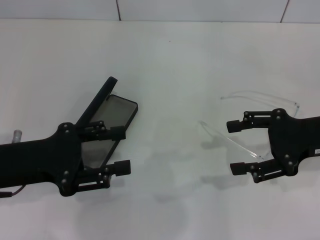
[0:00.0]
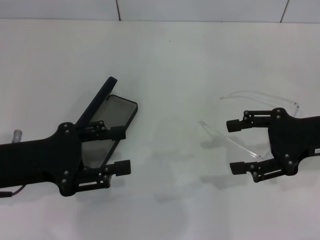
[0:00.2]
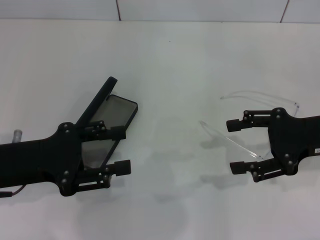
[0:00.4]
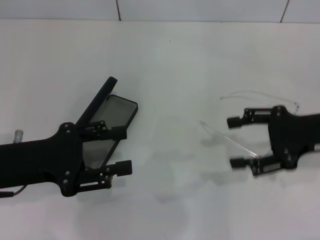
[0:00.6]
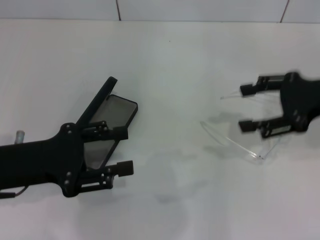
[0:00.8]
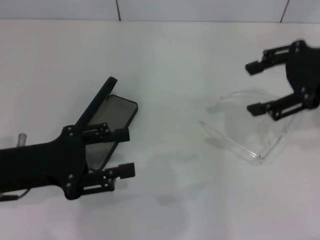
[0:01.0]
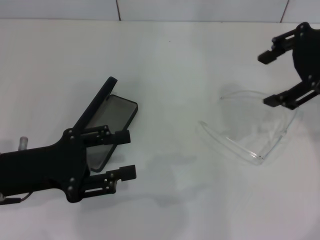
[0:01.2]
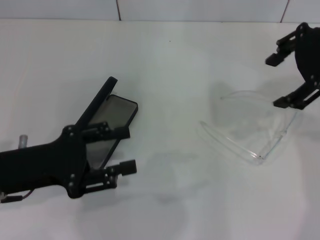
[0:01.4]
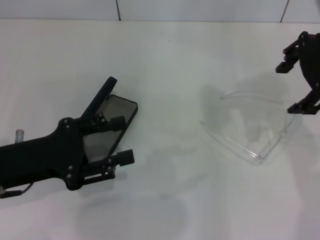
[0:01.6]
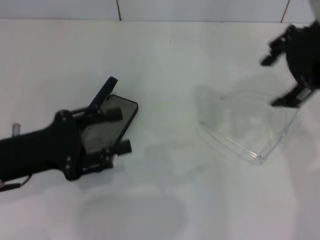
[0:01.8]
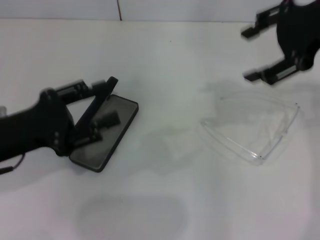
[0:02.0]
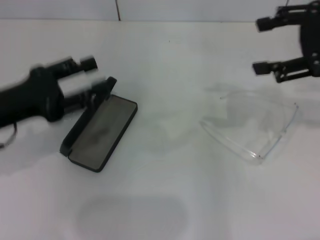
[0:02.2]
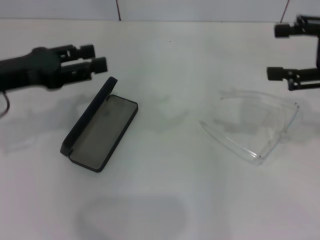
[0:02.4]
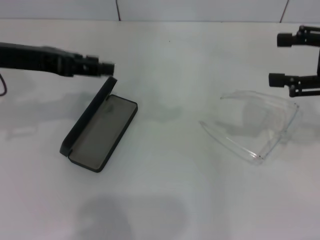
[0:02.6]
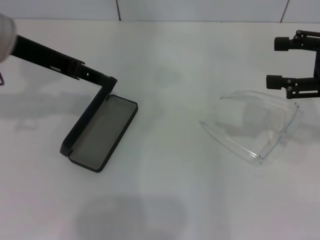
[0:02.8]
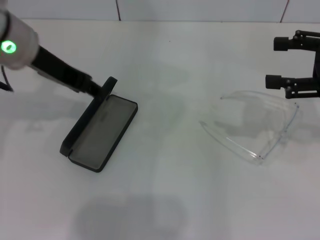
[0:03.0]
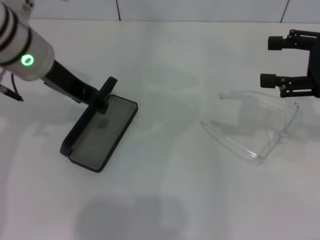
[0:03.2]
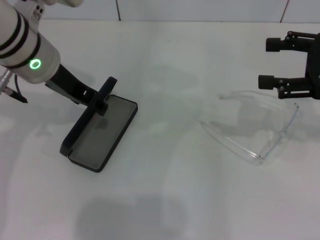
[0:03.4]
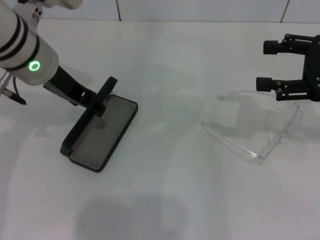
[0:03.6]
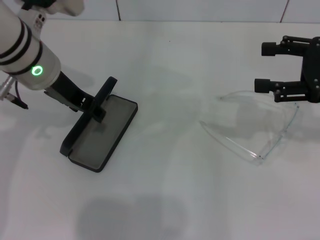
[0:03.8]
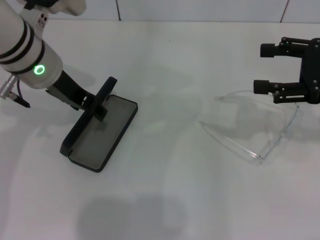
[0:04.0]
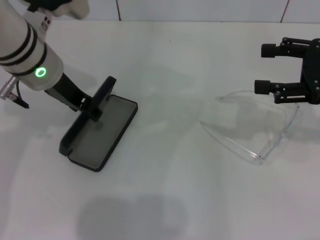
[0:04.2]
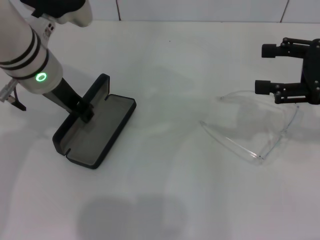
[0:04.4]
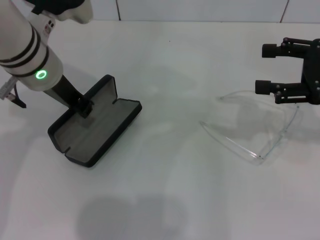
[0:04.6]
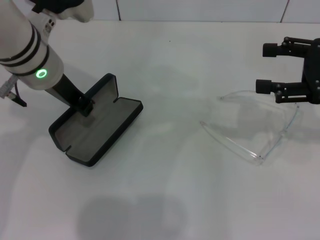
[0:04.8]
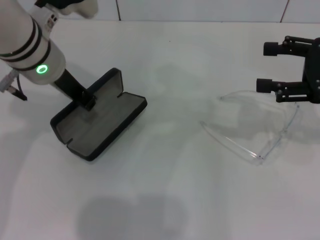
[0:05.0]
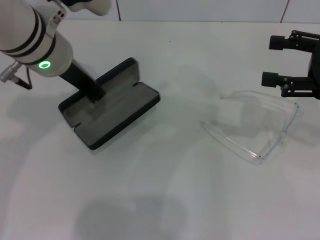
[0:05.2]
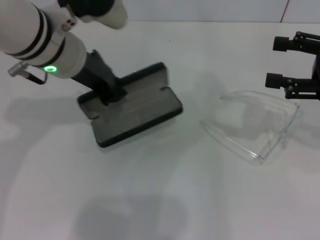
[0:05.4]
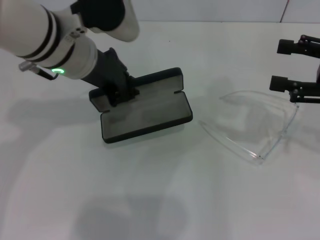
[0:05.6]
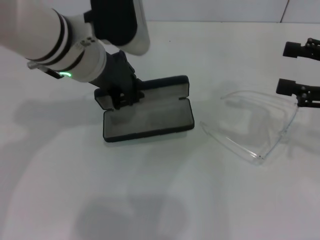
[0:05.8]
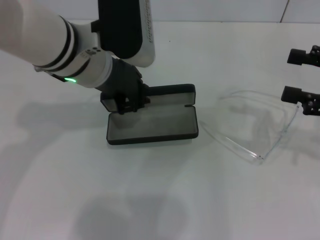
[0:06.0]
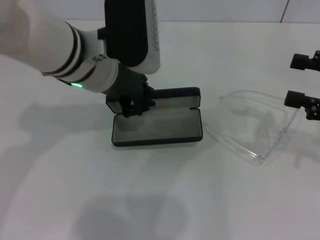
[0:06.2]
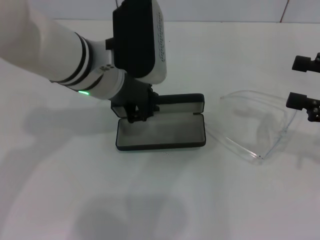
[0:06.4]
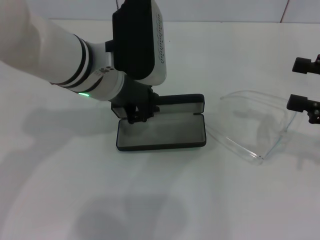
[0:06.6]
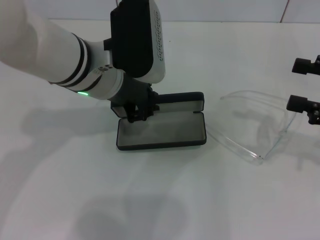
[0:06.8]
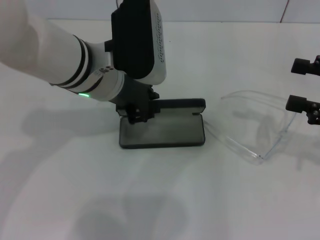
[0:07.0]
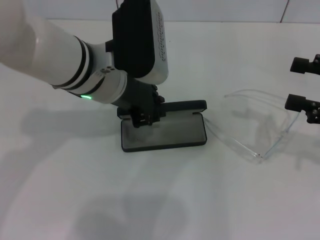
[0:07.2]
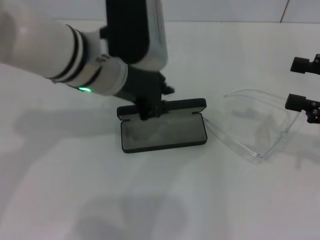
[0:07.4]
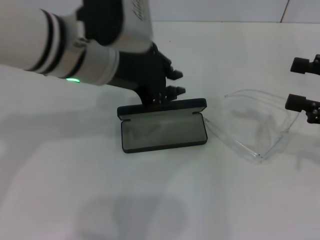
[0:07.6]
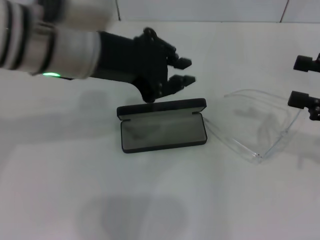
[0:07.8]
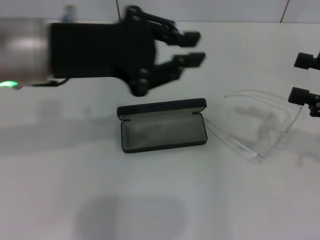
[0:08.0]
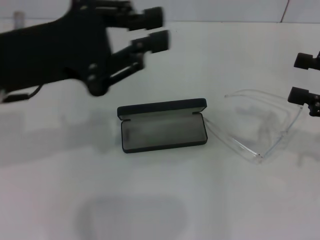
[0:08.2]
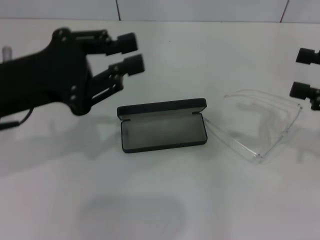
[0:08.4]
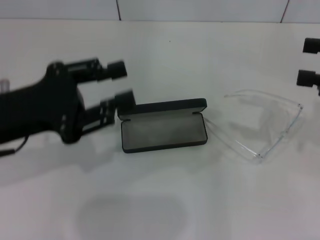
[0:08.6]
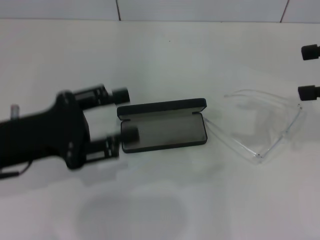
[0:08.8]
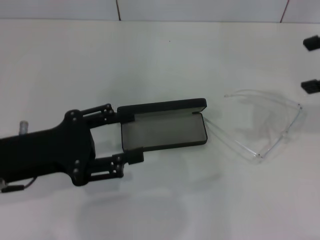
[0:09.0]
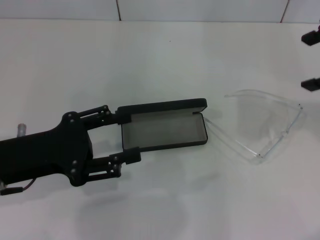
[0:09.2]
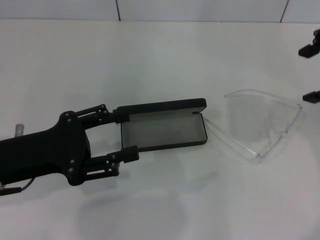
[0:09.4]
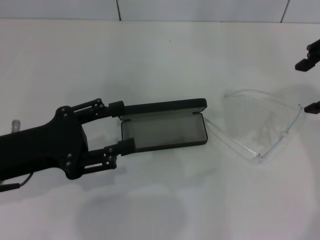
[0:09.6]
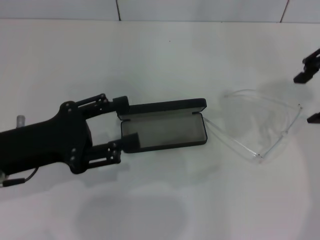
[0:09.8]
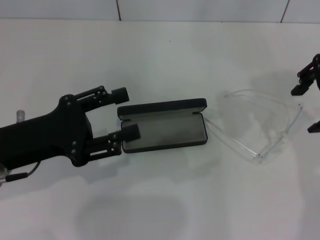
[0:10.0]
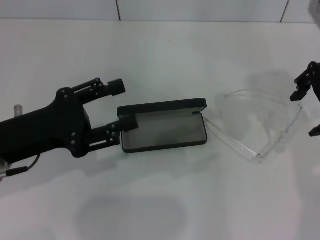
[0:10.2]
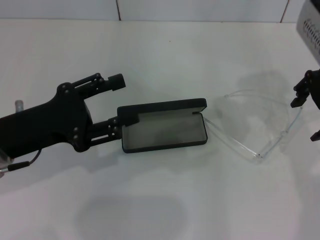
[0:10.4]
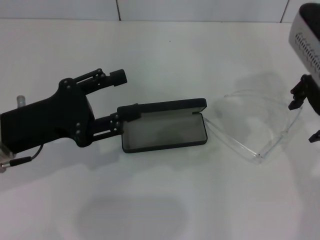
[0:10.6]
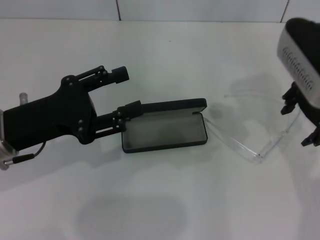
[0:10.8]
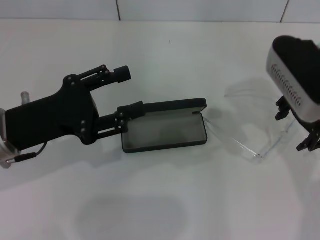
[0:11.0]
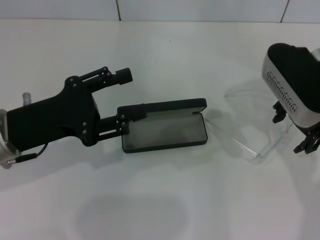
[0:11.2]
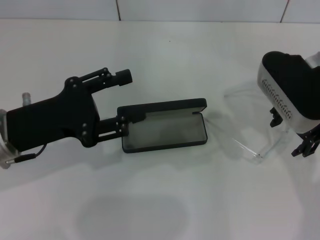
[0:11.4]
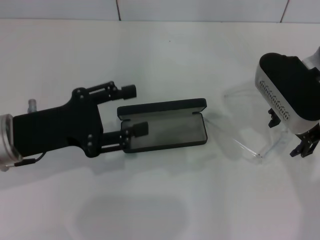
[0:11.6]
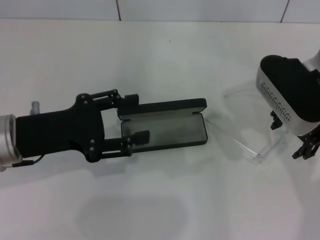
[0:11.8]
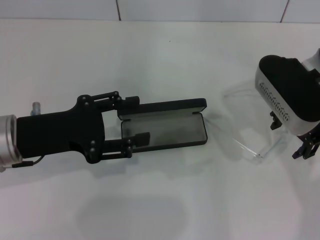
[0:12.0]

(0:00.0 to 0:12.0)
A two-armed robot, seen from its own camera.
Step, 0:00.0 - 0:04.0: Grab the glasses case with your left hand.
Step, 0:04.2 - 0:07.2: Place the glasses case in the center of the table with your left hand.
0:00.0 - 0:01.6: The right gripper is displaced upward and to the left by roughly 20 cm.
0:01.6 - 0:03.0: The left gripper goes approximately 20 cm forward, upward and to the right. The right gripper moves to the right and downward, about 15 cm.
0:03.0 - 0:04.4: There are only small adjustments of the grippers.
0:04.4 - 0:06.0: The left gripper is displaced to the right by roughly 5 cm.
0:06.0 - 0:07.6: There are only small adjustments of the grippers.
0:07.6 - 0:09.0: The left gripper shifts about 20 cm to the left, downward and backward, and opens up; the right gripper heads upward, covering some 15 cm.
0:09.0 - 0:10.4: The right gripper shifts approximately 10 cm to the left, forward and downward.
0:10.4 - 0:12.0: The right gripper heads downward, covering roughly 5 cm.

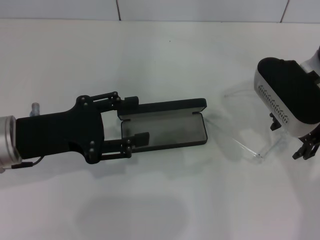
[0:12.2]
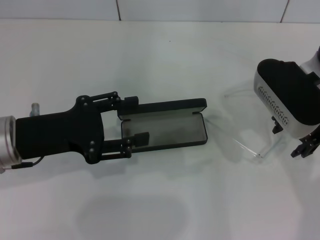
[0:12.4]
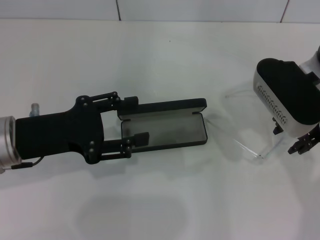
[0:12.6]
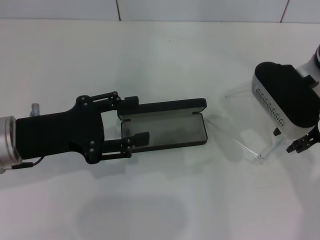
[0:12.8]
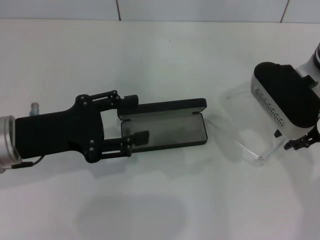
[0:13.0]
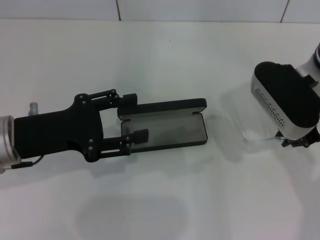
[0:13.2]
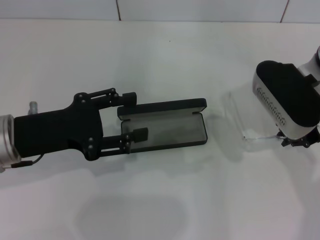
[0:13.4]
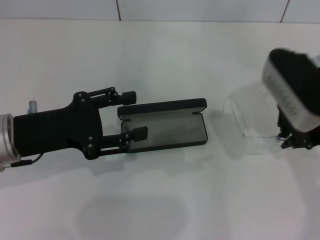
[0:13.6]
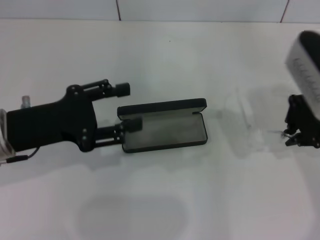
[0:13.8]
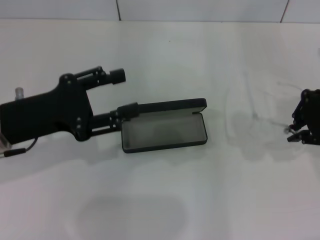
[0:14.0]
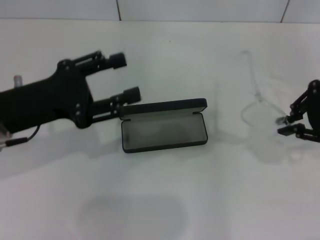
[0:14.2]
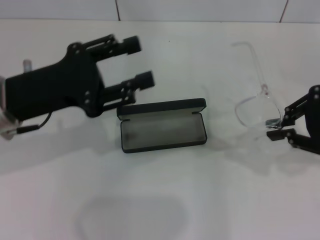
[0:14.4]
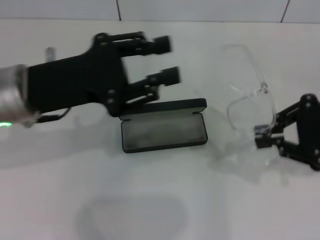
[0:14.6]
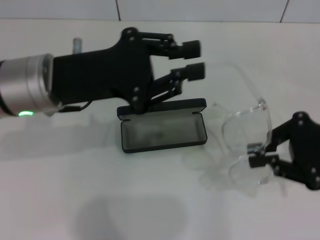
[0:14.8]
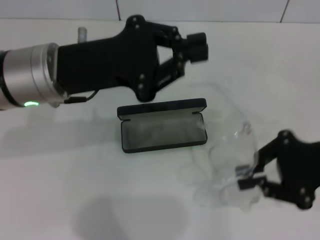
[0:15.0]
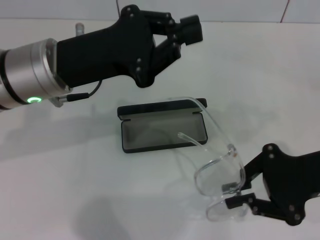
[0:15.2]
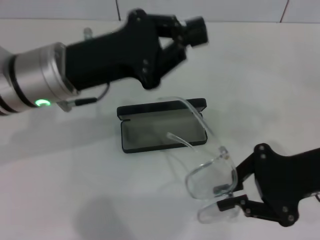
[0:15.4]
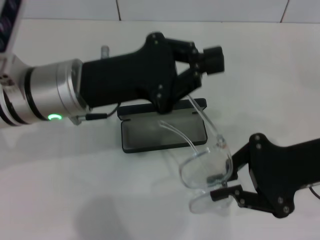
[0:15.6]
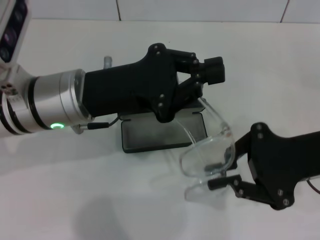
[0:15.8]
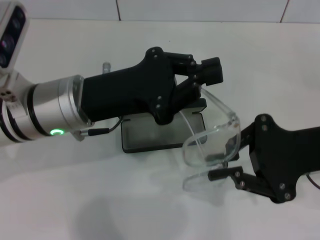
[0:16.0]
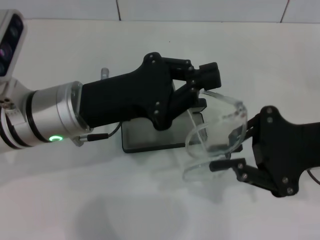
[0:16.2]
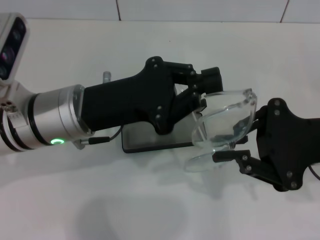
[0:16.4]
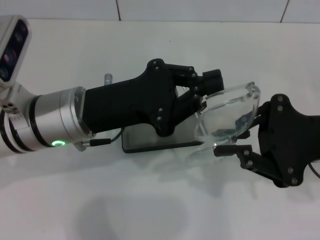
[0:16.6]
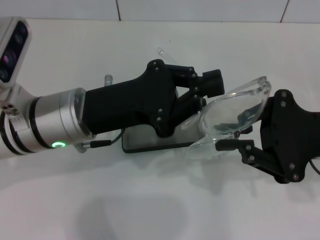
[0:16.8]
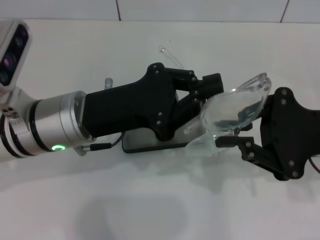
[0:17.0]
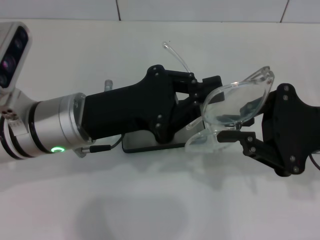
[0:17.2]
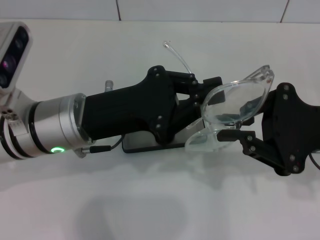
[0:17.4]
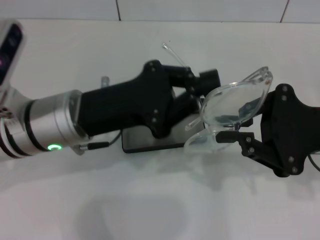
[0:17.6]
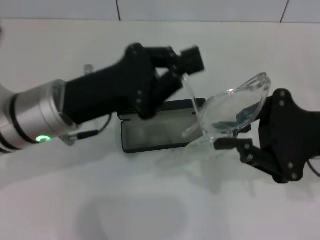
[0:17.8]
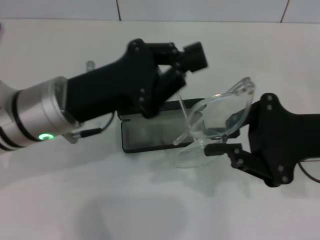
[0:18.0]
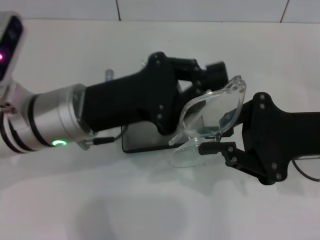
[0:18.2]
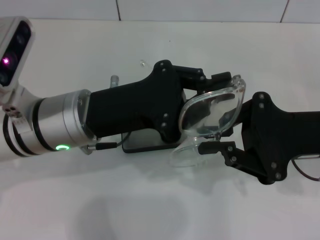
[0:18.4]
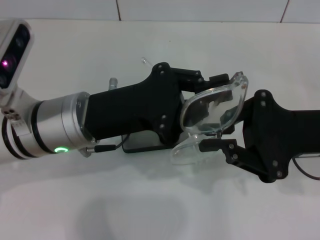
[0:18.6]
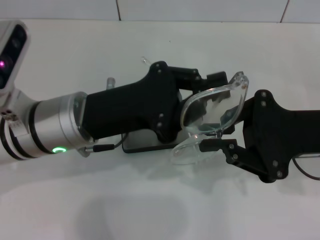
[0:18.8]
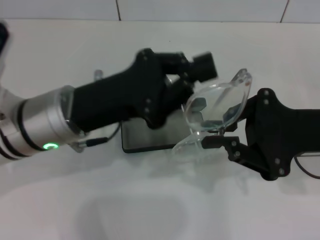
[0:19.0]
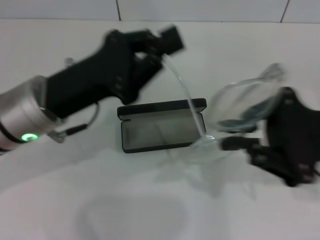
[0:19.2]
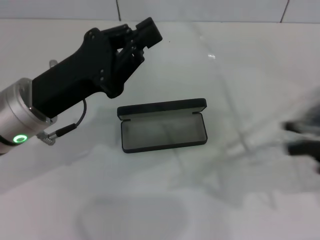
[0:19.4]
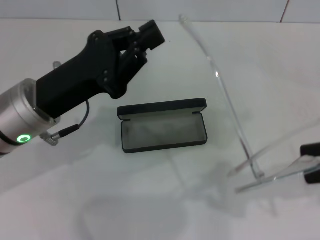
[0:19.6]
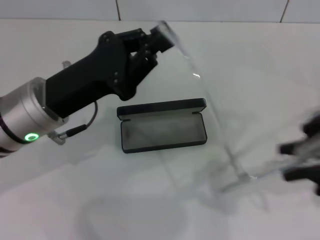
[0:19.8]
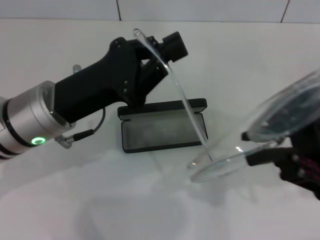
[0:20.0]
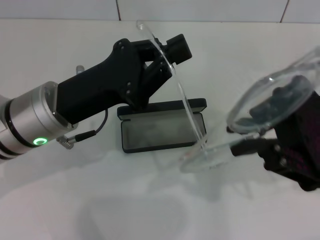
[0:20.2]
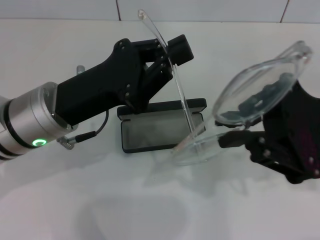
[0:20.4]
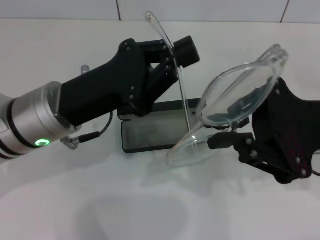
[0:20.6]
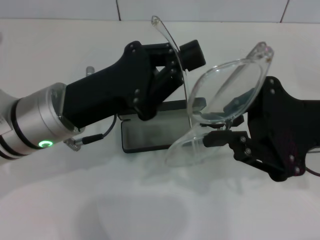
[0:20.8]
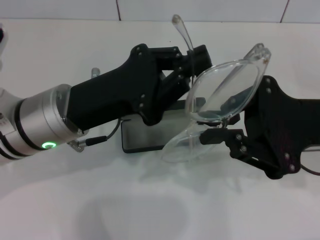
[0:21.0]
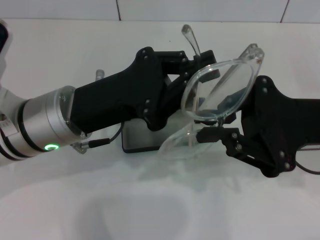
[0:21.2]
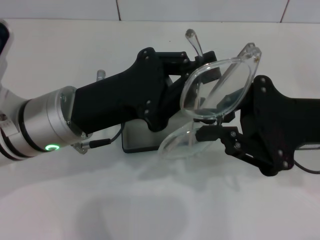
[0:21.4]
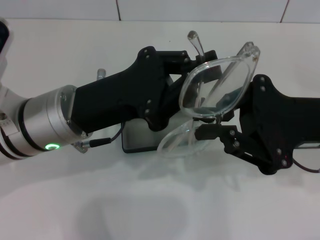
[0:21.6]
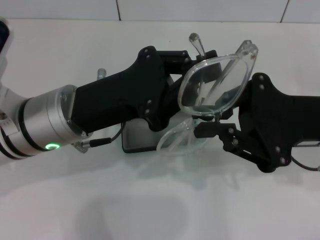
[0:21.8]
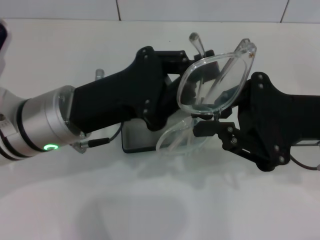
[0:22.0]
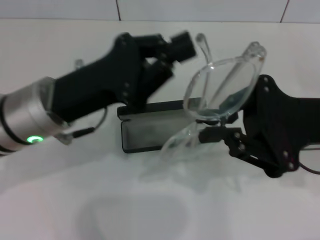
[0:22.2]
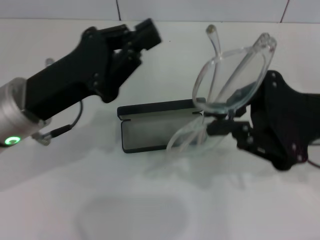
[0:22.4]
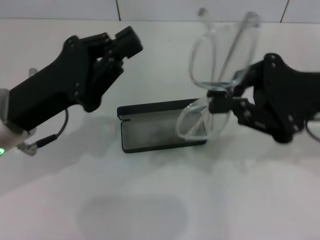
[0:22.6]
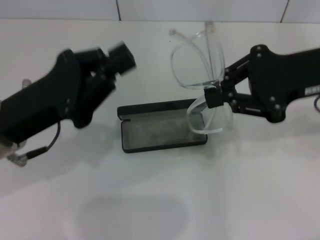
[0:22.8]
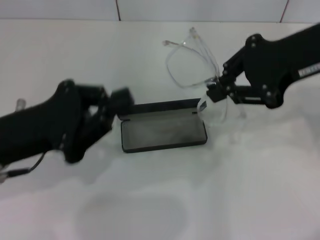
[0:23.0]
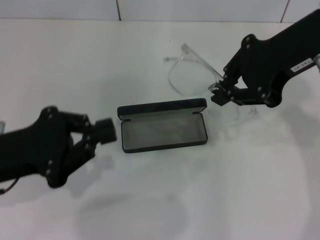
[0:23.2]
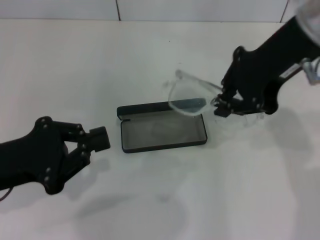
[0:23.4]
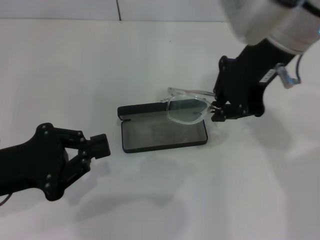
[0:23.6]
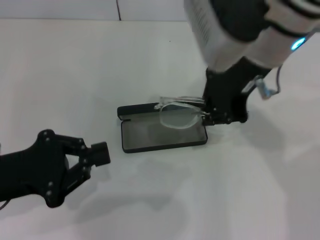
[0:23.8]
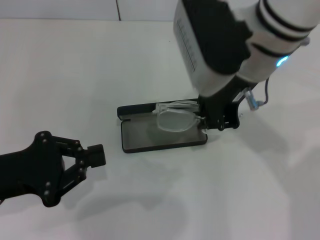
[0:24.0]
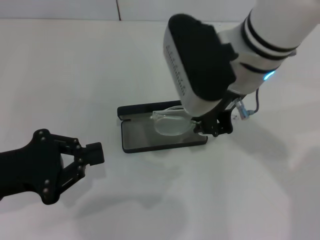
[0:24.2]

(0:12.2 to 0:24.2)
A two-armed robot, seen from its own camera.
Step, 0:13.4 - 0:22.0: Fold the frame with your left hand.
0:12.2 - 0:13.8: The right gripper closes its fingers.
0:13.8 - 0:15.2: The right gripper moves backward and downward, approximately 10 cm. Meanwhile the left gripper travels to the right by some 5 cm, and closes.
0:15.2 - 0:16.6: The left gripper ends up some 5 cm from where it was.
0:16.6 - 0:18.2: The grippers move only a little.
0:19.8 - 0:21.2: The right gripper changes place by about 5 cm.
0:21.2 - 0:22.6: The left gripper goes approximately 5 cm to the left.
0:22.6 - 0:24.2: The left gripper travels to the left and backward by about 10 cm, while the right gripper moves to the left, roughly 15 cm.
